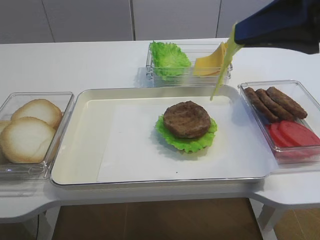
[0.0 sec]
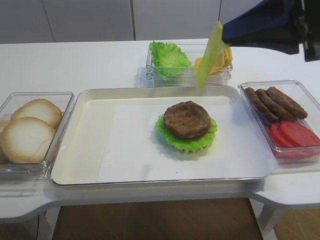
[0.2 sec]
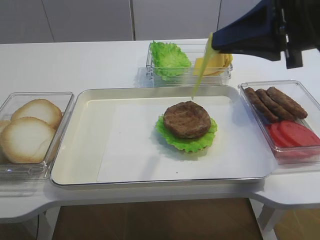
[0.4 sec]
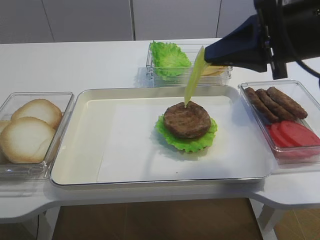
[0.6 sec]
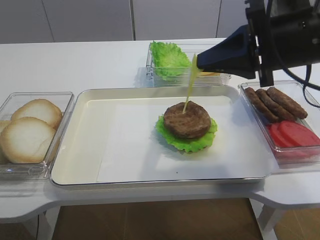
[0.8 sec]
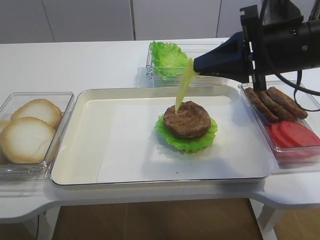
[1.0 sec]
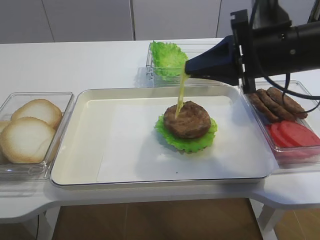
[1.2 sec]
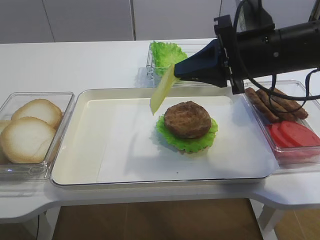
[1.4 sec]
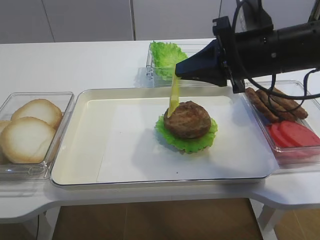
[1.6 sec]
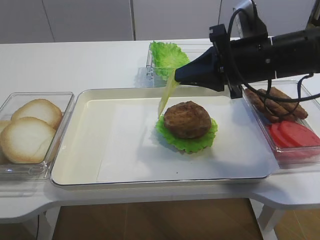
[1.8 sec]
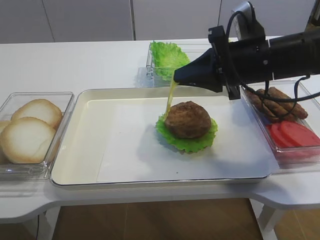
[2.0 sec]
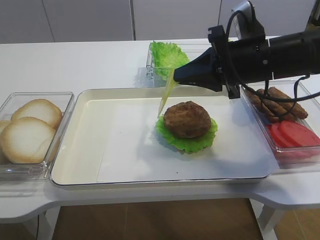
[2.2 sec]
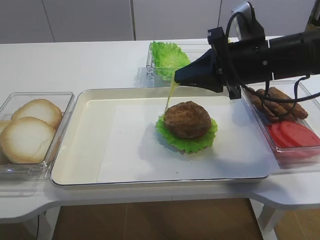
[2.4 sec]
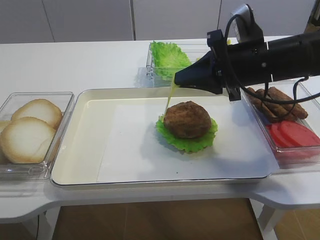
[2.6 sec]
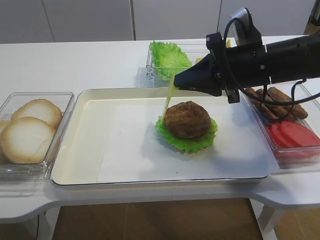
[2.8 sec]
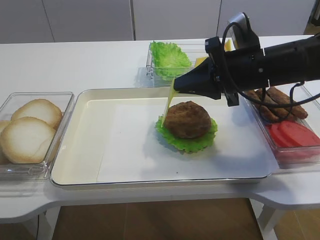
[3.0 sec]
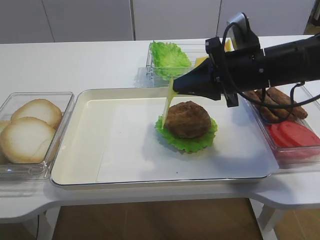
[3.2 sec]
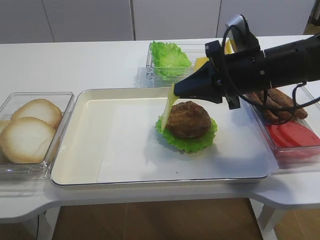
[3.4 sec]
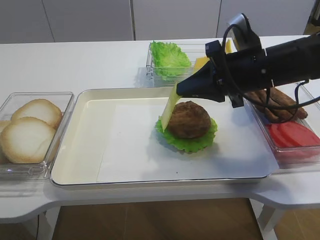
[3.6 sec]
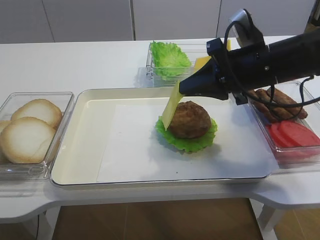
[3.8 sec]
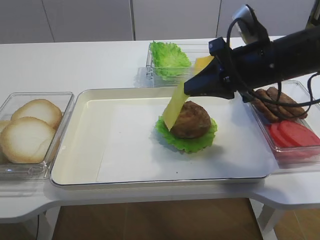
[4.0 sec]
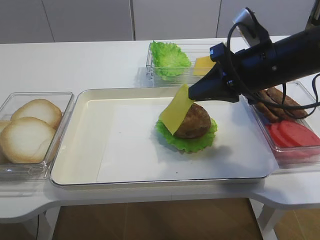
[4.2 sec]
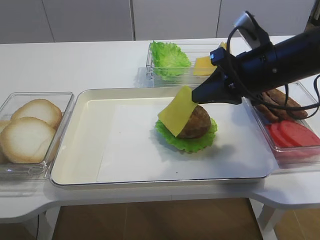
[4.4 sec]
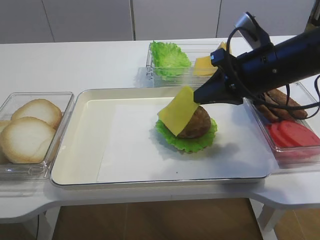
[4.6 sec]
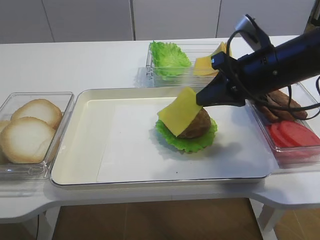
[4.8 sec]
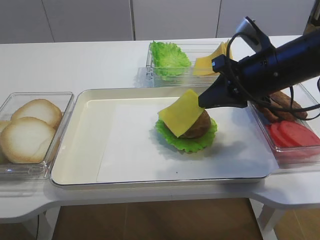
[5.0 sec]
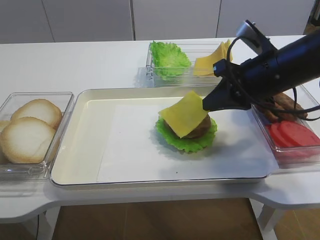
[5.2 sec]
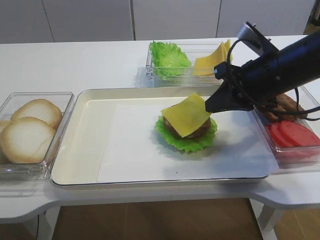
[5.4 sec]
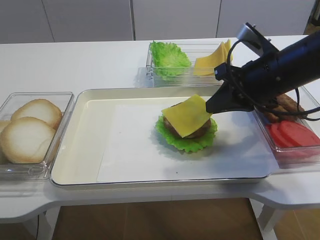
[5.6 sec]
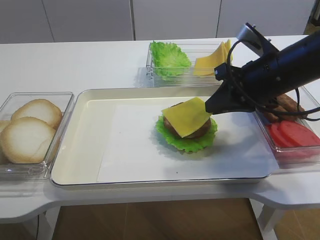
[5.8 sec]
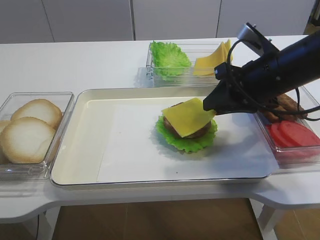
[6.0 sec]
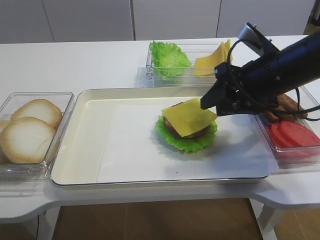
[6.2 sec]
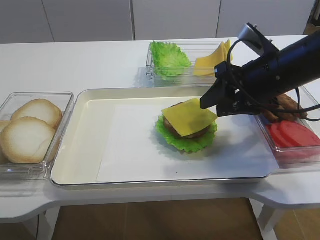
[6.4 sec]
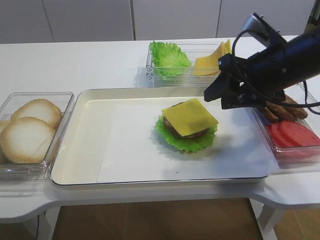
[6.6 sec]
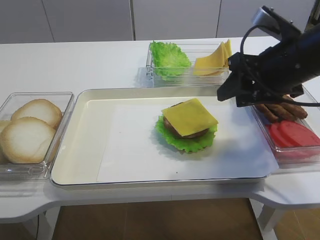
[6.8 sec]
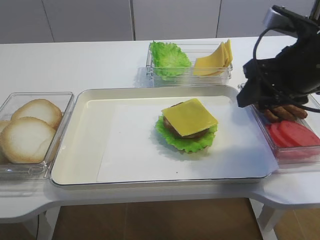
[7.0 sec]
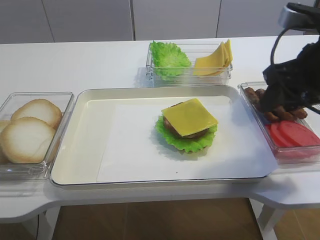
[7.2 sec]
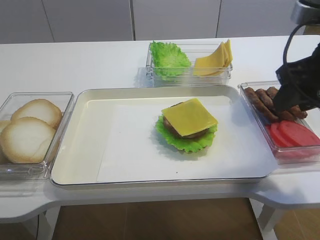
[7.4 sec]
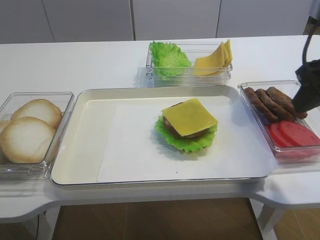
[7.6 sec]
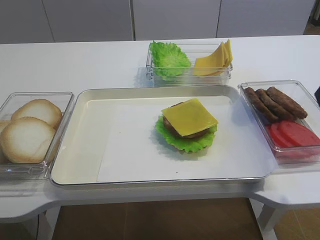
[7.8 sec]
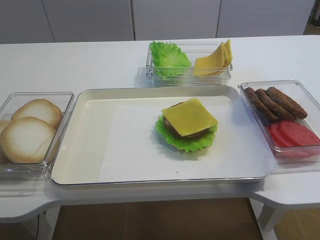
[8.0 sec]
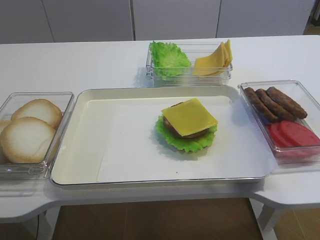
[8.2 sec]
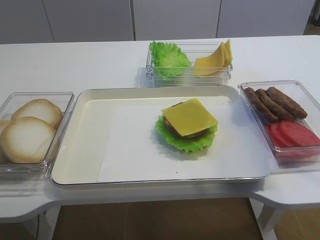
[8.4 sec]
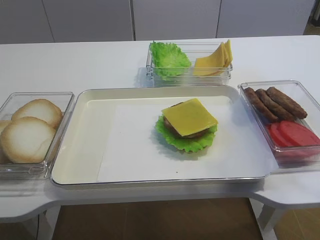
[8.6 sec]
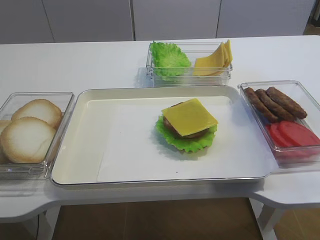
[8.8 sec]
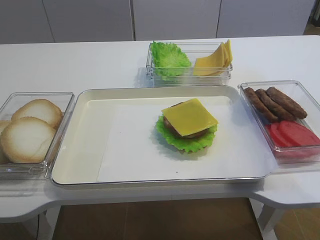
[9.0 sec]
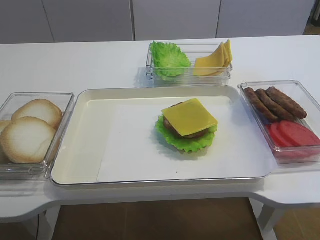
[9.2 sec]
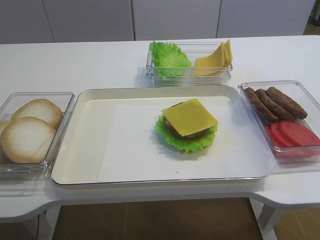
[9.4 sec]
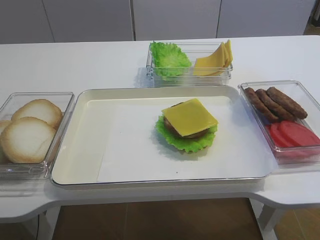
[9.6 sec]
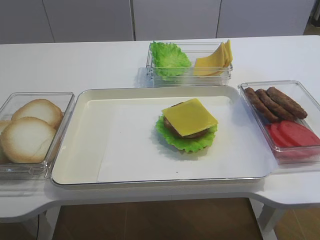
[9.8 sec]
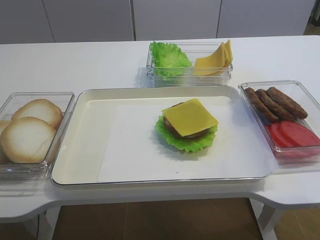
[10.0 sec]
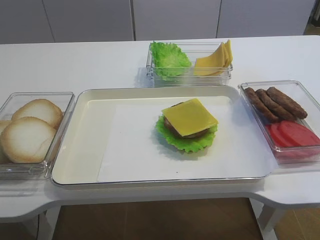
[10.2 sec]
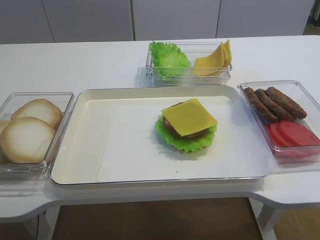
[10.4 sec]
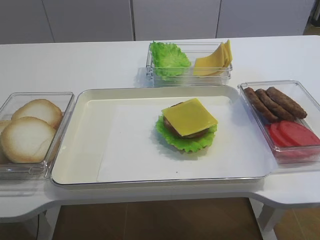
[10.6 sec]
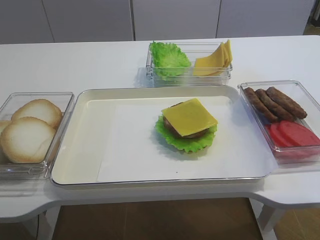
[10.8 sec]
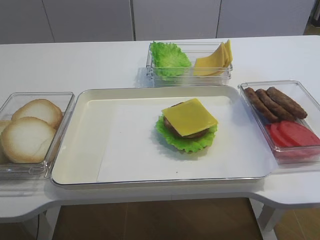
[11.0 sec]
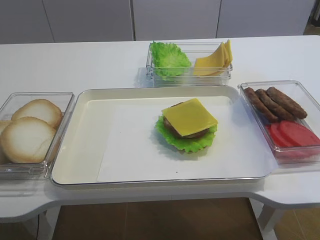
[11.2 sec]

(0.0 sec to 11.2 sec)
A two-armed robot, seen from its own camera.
Step, 0.0 sec - 7.0 sec: Place the cheese slice on the cutlet with the right gripper.
0.0 sec - 1.6 sec: The right gripper goes approximately 15 cm downward and forward.
1.6 sec - 4.8 sec: The grippers move only a little.
4.8 sec - 6.4 sec: The right gripper opens up.
6.4 sec - 8.0 sec: The right gripper is displaced backward, upward and to the right by roughly 20 cm.
8.0 sec - 9.6 sec: The right gripper goes about 20 cm backward and downward.

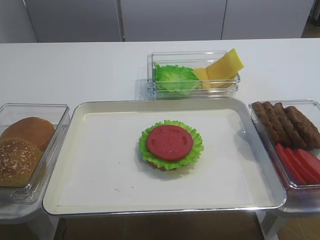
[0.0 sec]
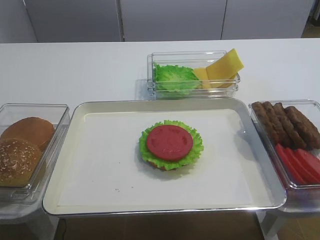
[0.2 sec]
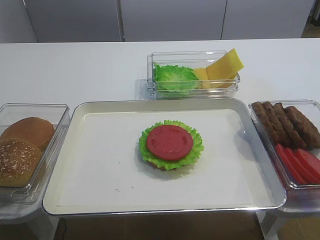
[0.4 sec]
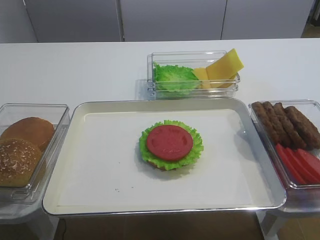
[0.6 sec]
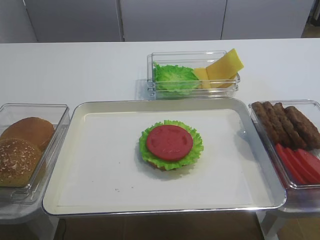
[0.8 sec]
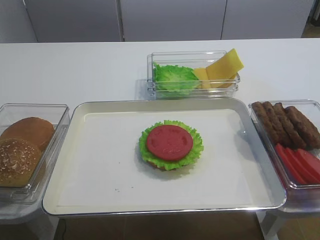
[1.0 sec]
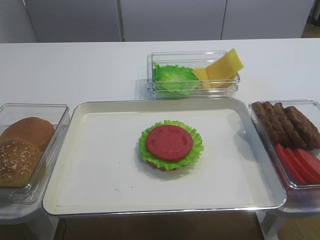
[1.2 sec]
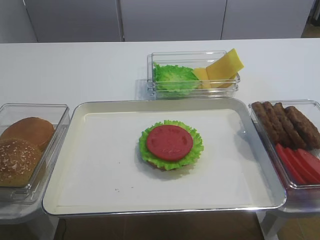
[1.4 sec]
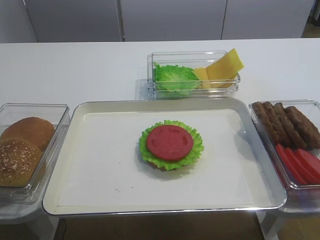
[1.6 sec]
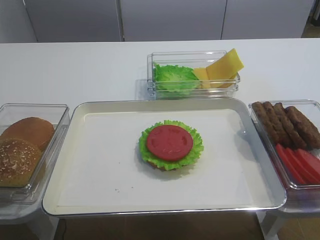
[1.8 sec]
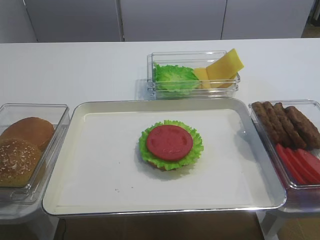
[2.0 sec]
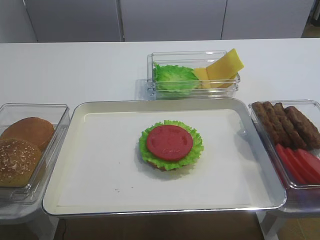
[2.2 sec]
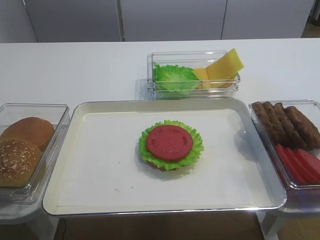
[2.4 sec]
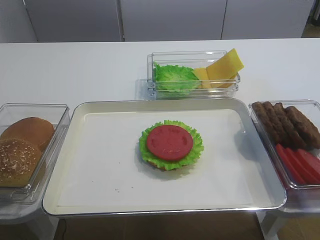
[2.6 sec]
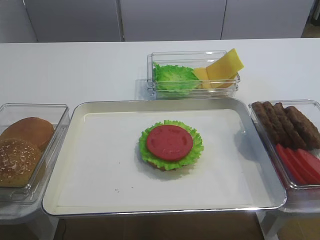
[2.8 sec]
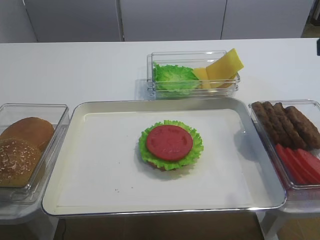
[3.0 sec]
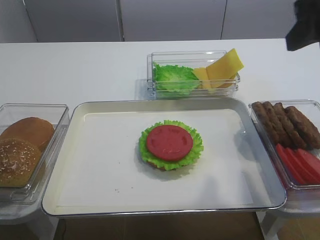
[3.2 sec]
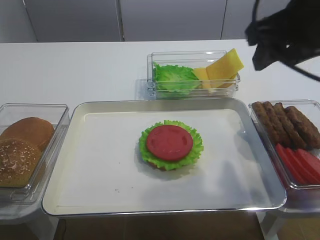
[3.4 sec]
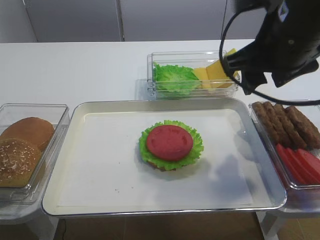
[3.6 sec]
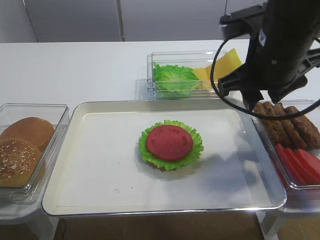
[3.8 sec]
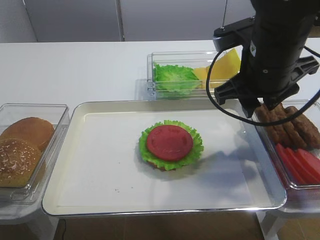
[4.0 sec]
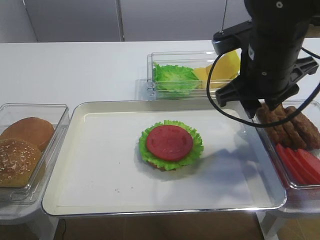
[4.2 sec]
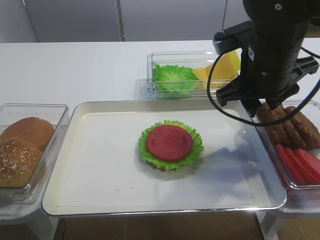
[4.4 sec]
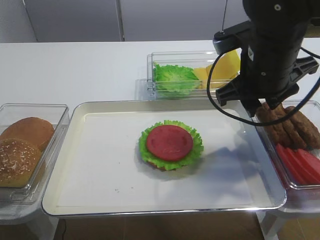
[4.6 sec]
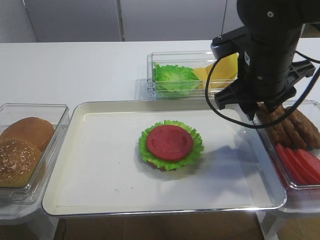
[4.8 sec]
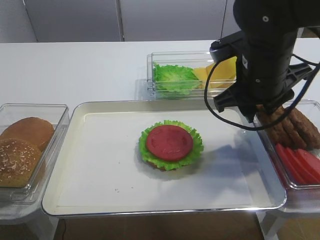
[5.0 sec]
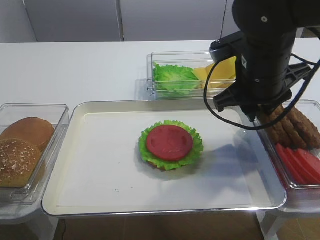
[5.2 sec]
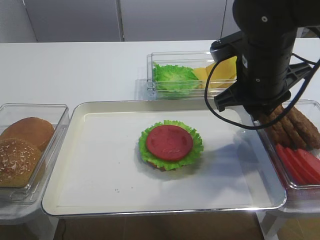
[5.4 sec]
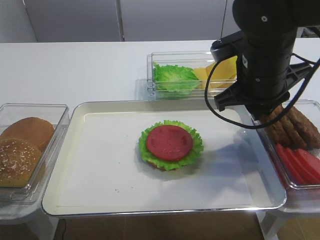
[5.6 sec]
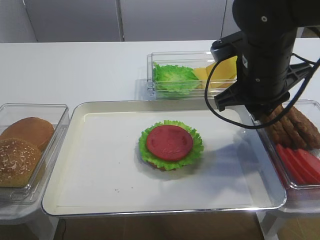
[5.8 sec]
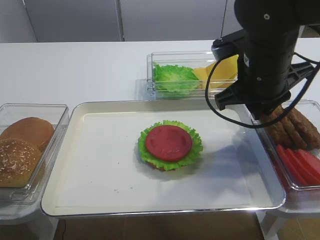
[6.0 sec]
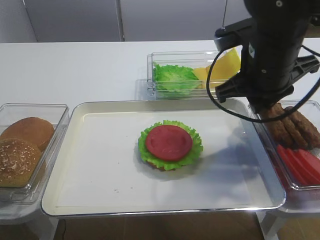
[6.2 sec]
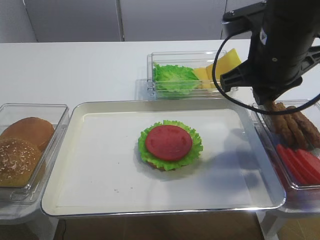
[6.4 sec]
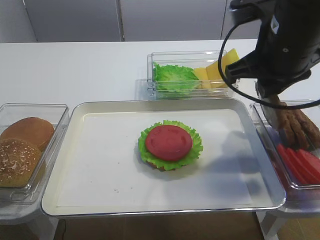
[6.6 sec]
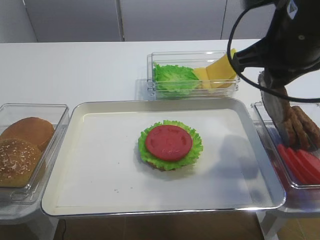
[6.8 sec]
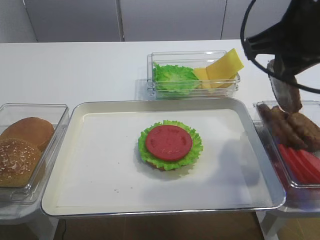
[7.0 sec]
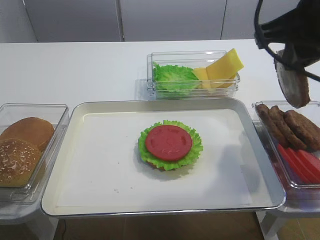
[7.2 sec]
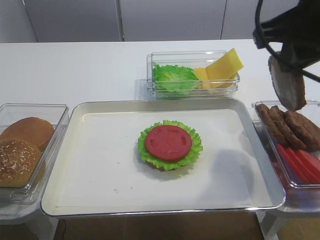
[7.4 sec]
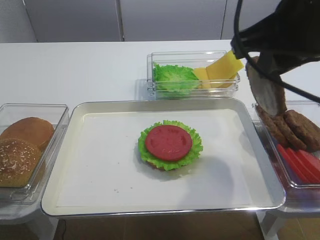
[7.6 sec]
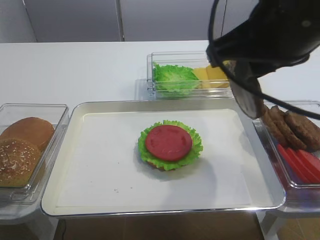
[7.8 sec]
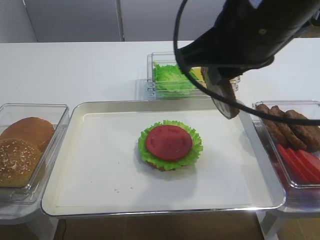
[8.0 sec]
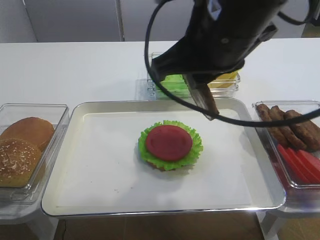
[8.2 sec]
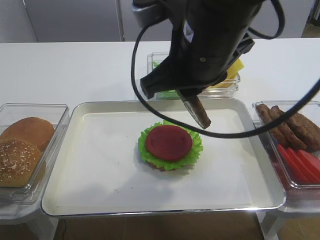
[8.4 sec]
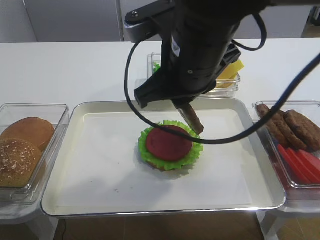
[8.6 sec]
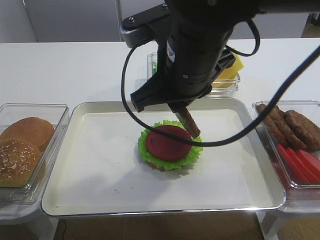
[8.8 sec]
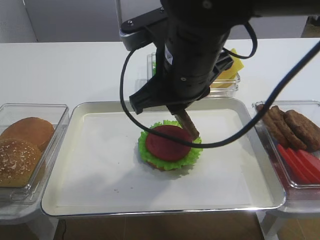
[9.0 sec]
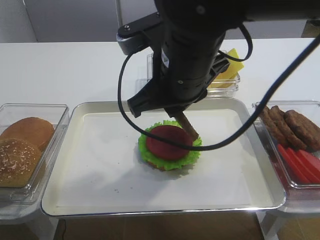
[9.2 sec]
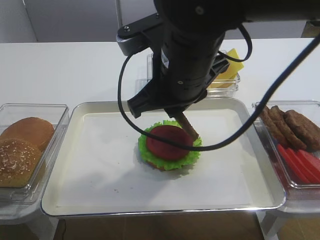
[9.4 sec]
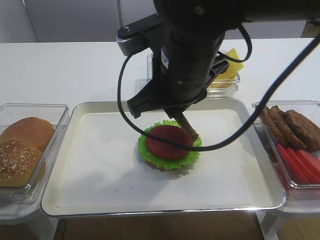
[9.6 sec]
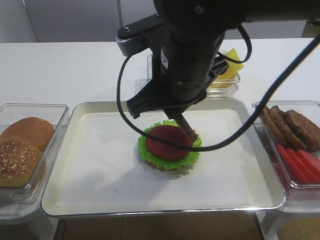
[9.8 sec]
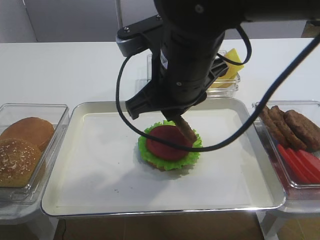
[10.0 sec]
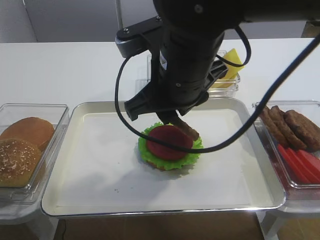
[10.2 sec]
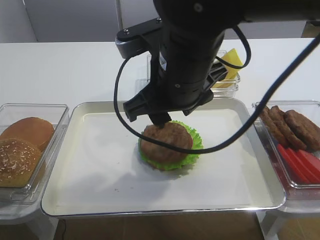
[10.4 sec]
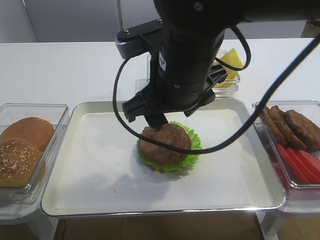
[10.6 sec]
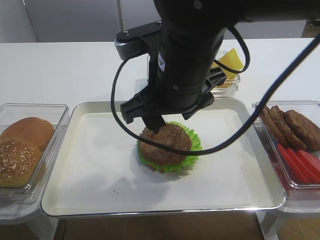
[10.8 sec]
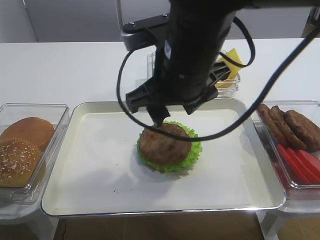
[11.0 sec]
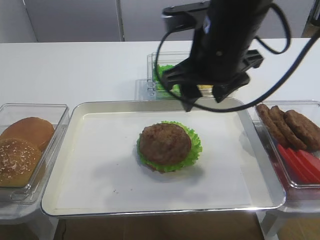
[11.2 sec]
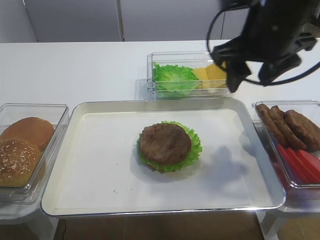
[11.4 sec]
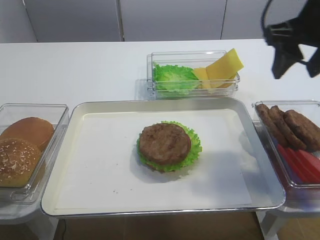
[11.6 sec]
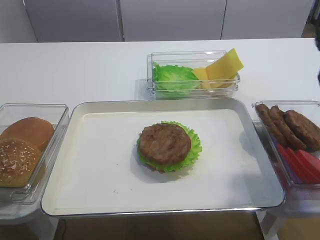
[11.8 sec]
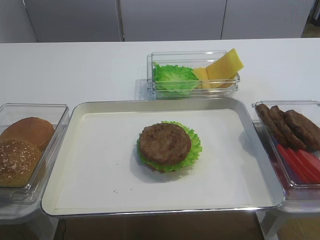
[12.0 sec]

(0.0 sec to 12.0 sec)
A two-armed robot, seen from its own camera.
Step, 0.0 sec - 7.2 sec: Pick up the cutlet with the right gripper.
Step, 7.4 sec - 11.0 sec: Place the cutlet on the tomato slice with the right gripper.
1.6 sec - 3.0 sec: The right gripper travels forward and upward by some 20 cm.
3.0 sec - 4.4 sec: The right gripper goes approximately 15 cm to the left, downward and forward.
4.4 sec - 6.0 sec: The grippers move only a little.
6.0 sec - 7.6 sec: The right gripper goes some 15 cm upward and backward.
7.6 sec - 9.0 sec: The right gripper is displaced to the left and downward by roughly 15 cm.
9.0 sec - 10.4 sec: Both grippers stay about where they are.
10.4 sec - 12.0 sec: The right gripper is displaced to the right by about 25 cm.
